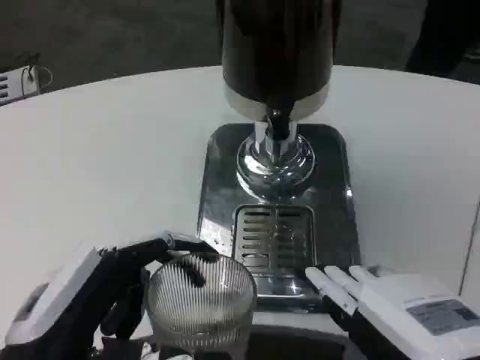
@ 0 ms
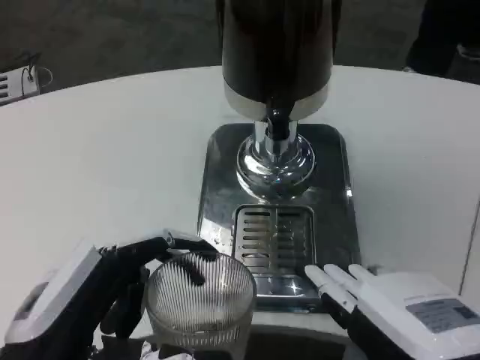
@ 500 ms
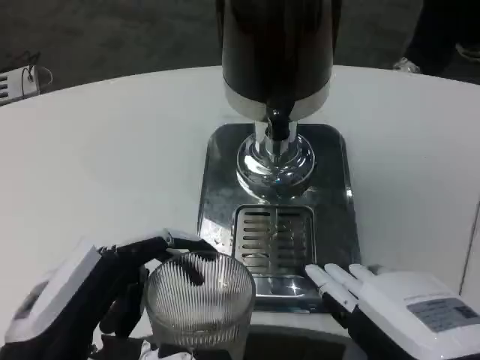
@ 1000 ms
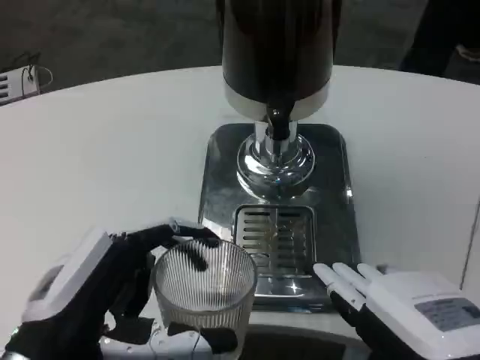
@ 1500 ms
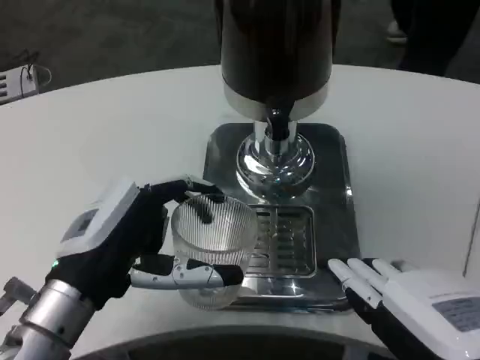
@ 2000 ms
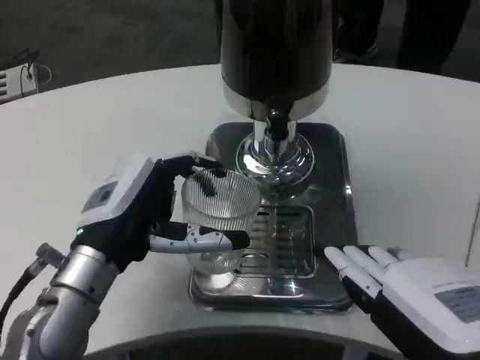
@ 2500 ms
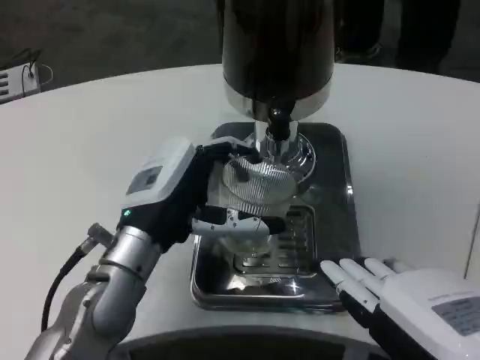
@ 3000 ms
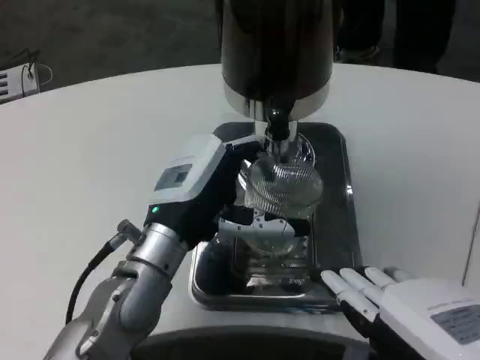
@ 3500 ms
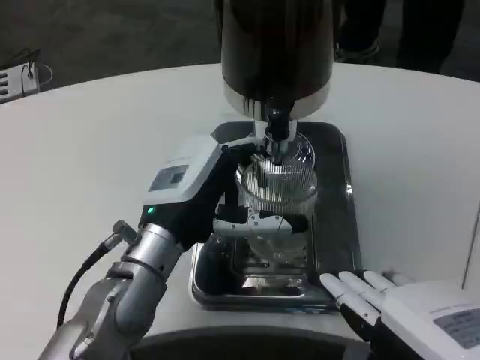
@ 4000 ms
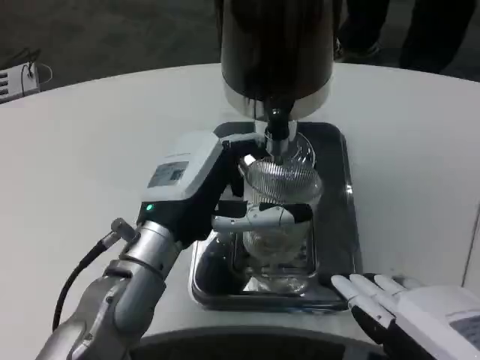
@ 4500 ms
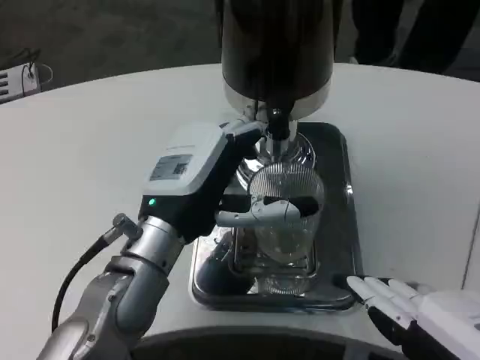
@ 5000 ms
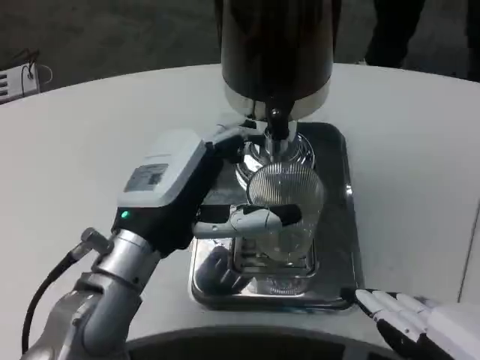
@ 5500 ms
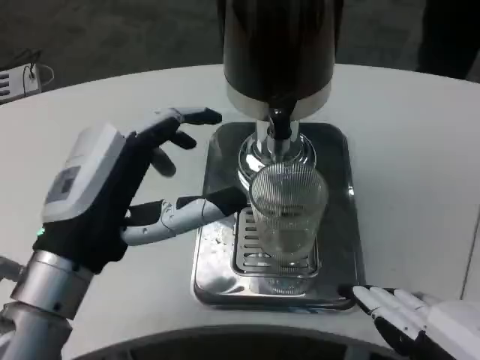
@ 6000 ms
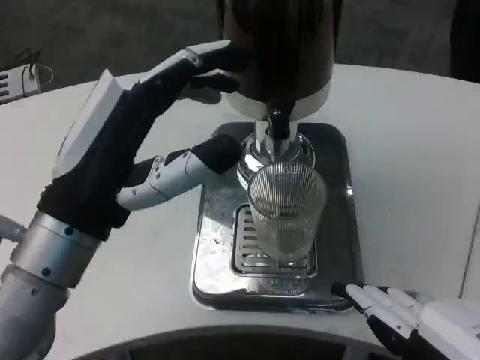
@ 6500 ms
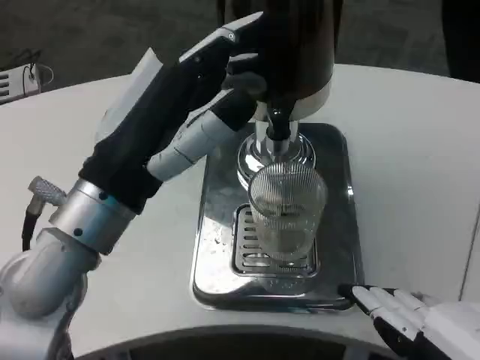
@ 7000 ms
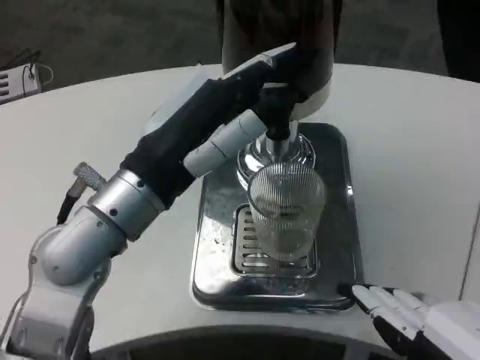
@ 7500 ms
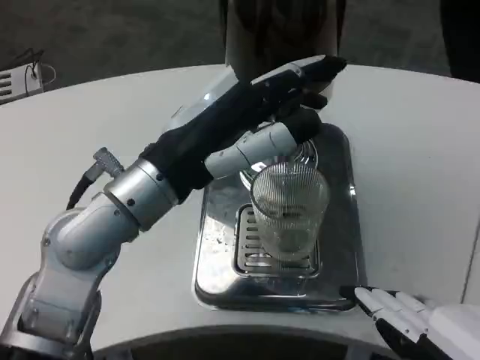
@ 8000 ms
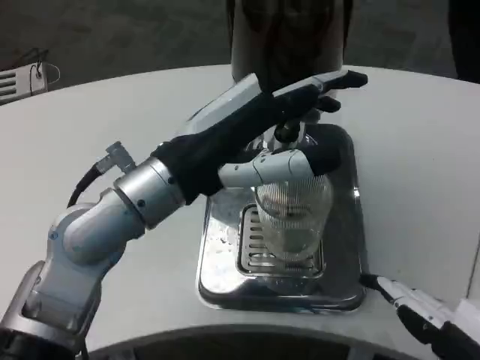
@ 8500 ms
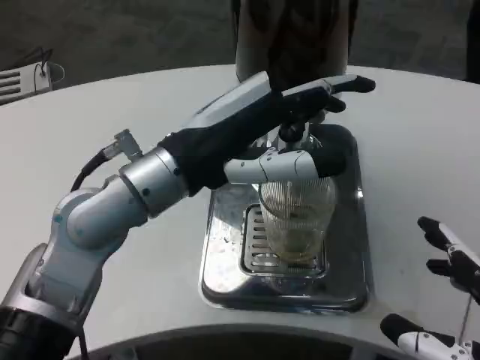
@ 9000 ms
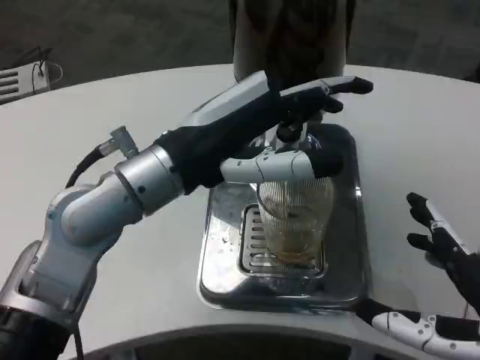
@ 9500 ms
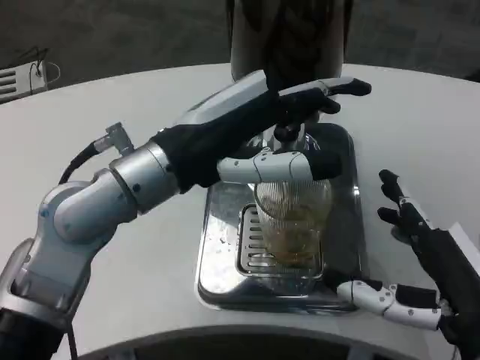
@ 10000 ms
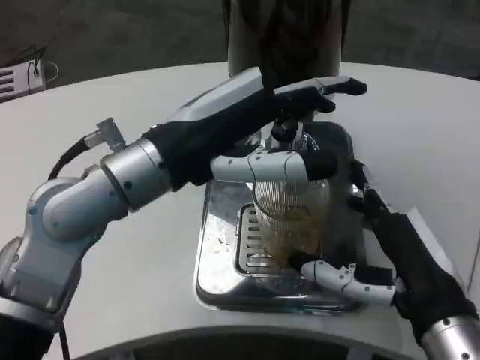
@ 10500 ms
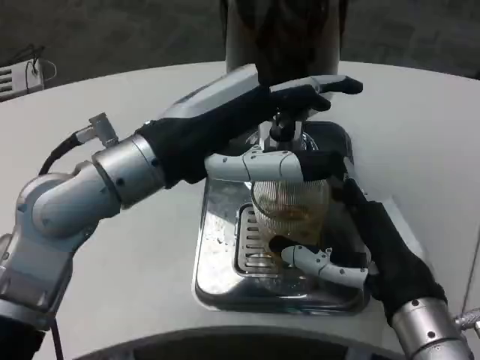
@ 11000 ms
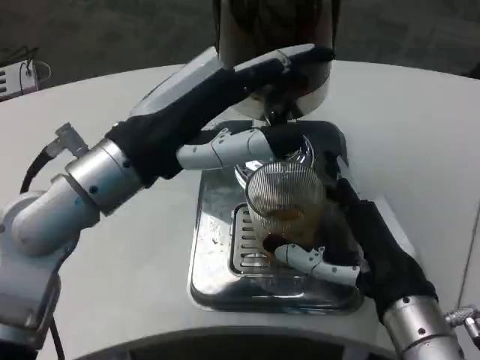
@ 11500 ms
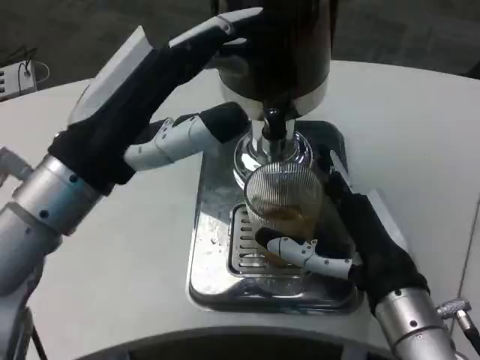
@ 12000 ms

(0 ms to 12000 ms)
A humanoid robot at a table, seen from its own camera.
Task of the whole recording: Grasp the cup under the faucet to collect the drink, then remove the cup.
0 ms - 2000 ms: The left hand is displaced forward by approximately 10 cm.
2000 ms - 4000 ms: The left hand travels forward and to the right by roughly 10 cm.
4000 ms - 6000 ms: The left hand is displaced backward and to the left by about 10 cm.
6000 ms - 8000 ms: The left hand is displaced forward and upward by approximately 10 cm.
8000 ms - 10000 ms: The right hand goes some 10 cm forward.
10000 ms - 12000 ms: The left hand changes place by roughly 5 cm. The right hand travels forward and to the left by some 10 cm.

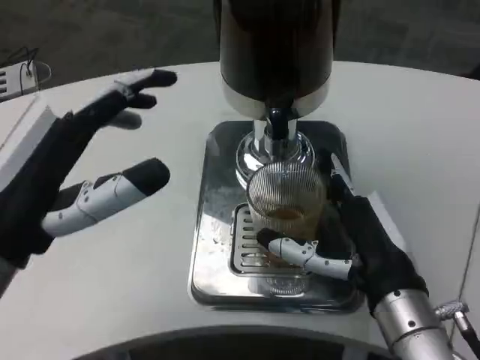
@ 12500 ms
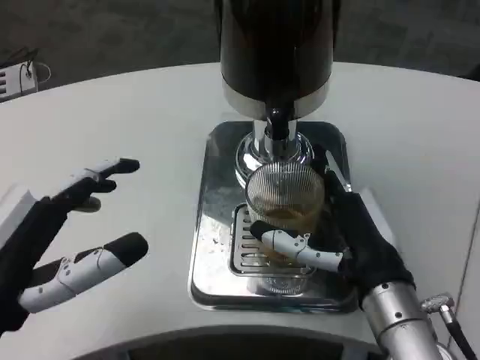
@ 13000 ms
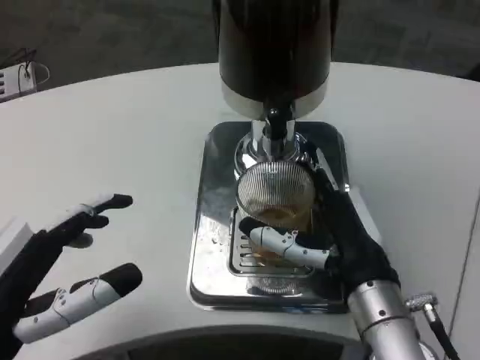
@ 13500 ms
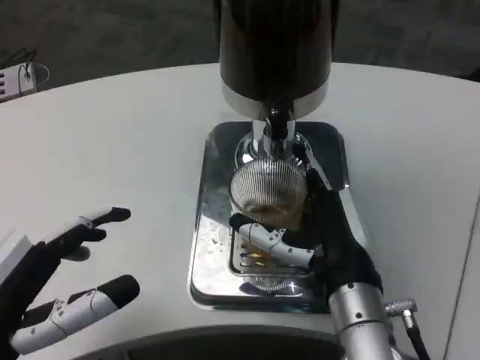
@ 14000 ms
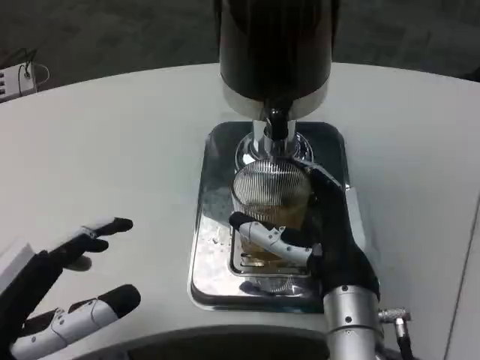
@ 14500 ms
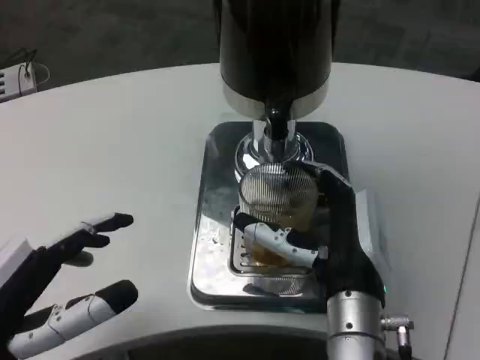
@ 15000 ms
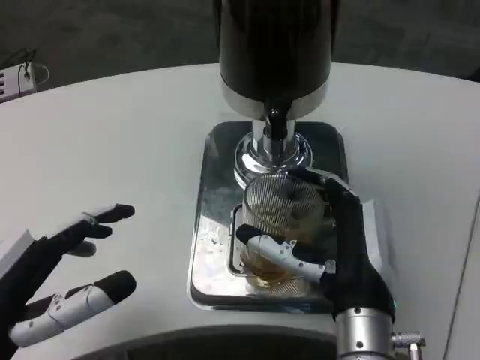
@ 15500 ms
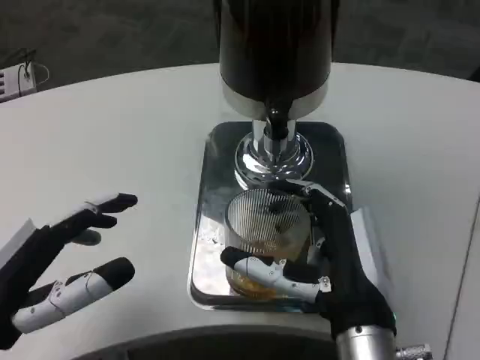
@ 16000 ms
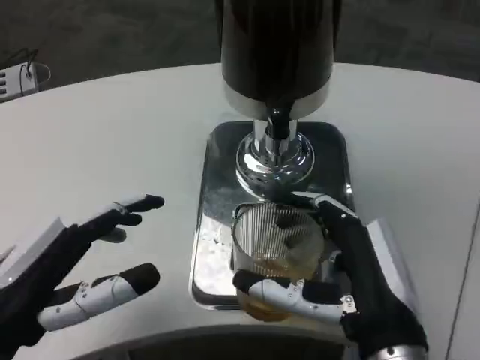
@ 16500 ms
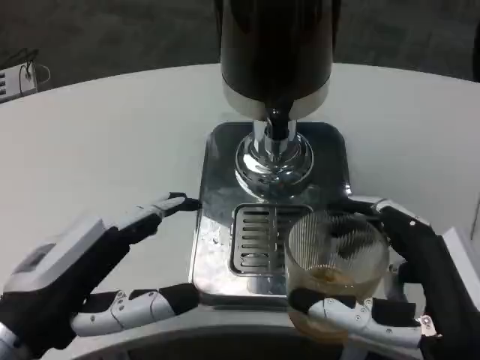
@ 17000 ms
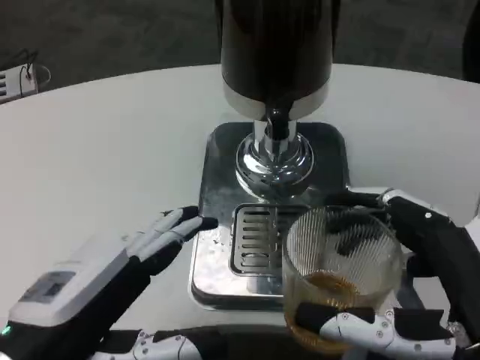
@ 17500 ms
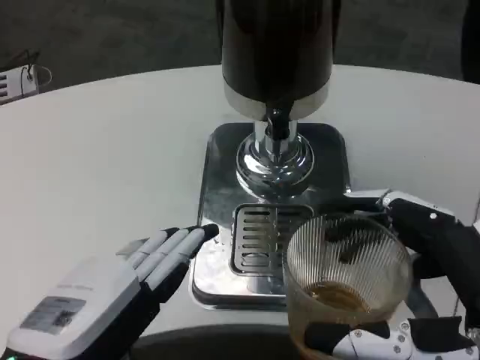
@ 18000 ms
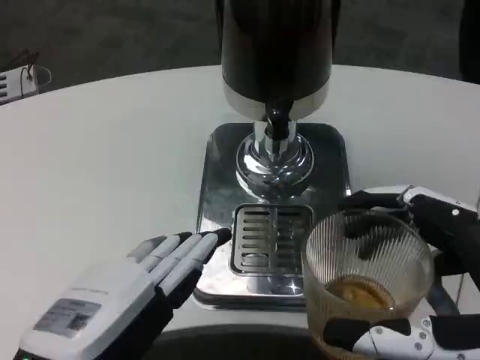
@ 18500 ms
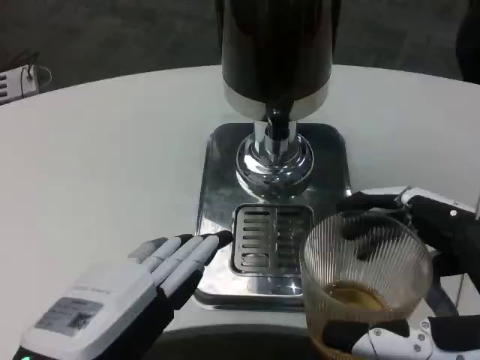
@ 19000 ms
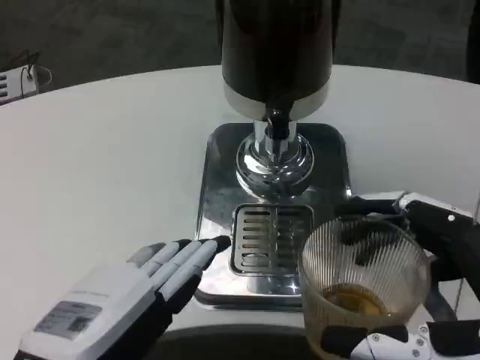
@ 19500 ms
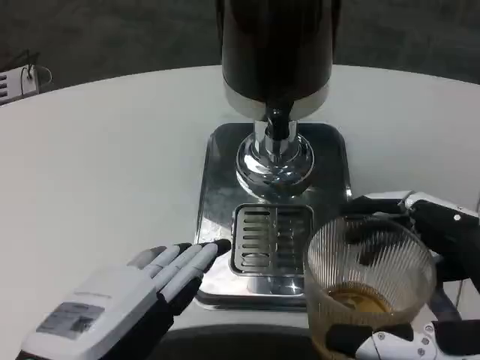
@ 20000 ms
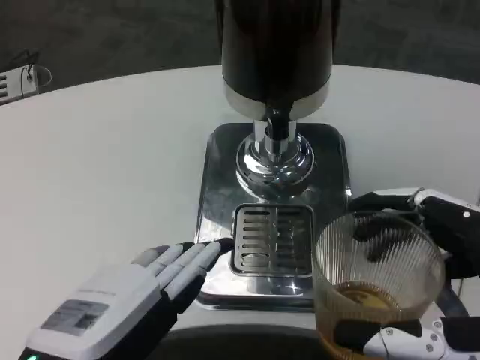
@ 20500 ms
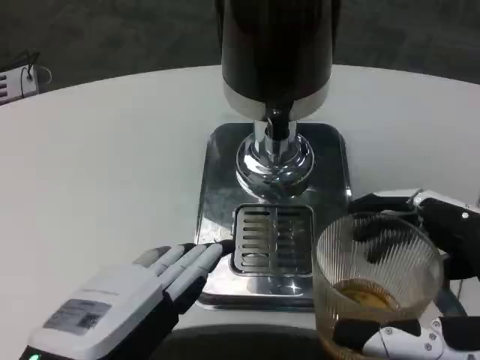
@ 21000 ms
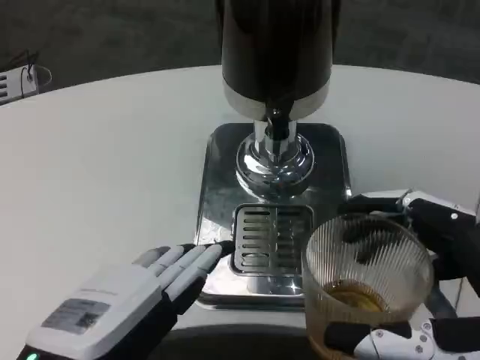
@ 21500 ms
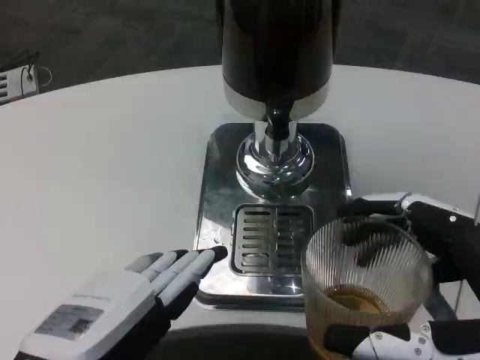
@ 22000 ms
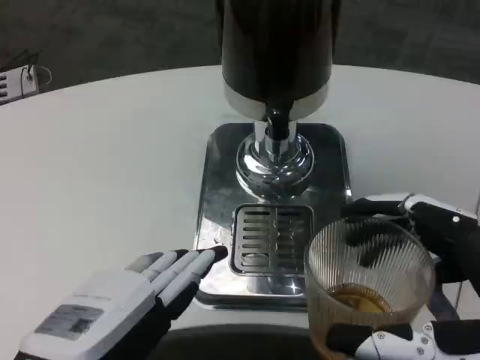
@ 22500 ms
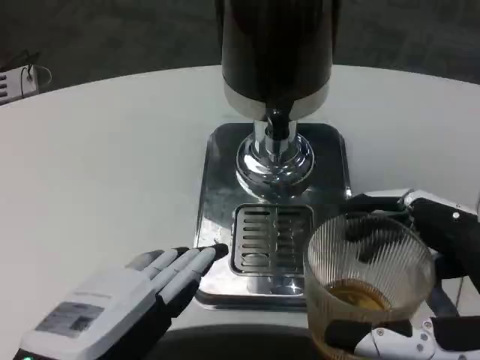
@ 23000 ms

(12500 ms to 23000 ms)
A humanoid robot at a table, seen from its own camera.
Task of the whole recording: Grasp the cup under the faucet to collect the drink, then remove the cup.
12500 ms - 14500 ms: The left hand goes approximately 5 cm downward and backward; the right hand is displaced to the left by about 5 cm.
14500 ms - 16500 ms: The right hand goes roughly 5 cm backward.
16500 ms - 19000 ms: The right hand goes approximately 15 cm to the right, backward and upward; the left hand heads backward and to the right, covering approximately 10 cm.
19000 ms - 23000 ms: Both hands stay about where they are.

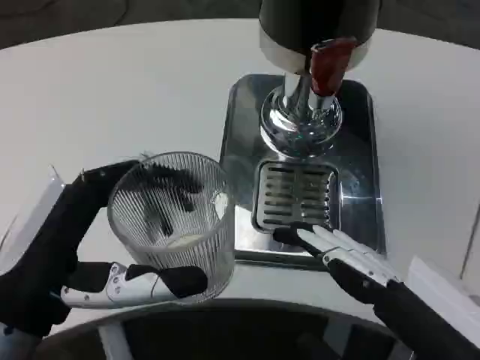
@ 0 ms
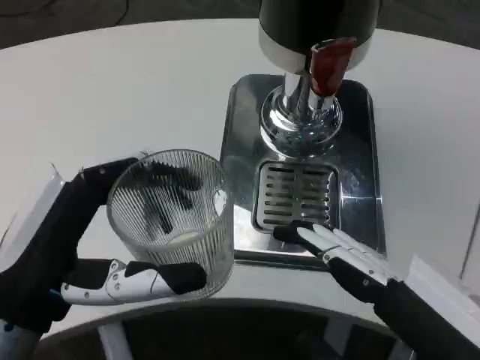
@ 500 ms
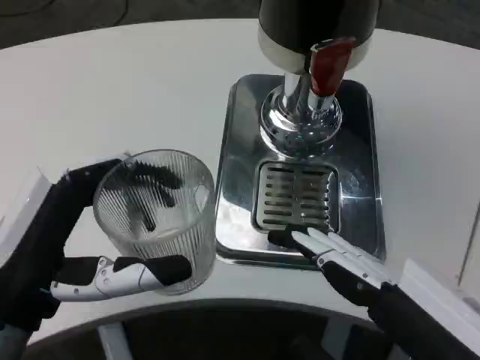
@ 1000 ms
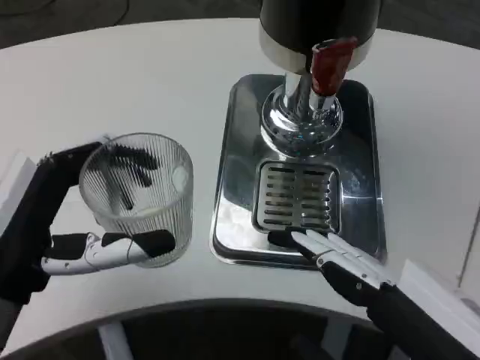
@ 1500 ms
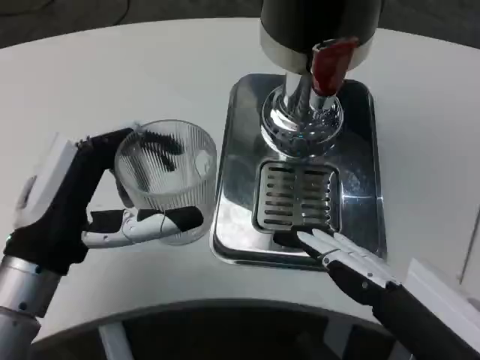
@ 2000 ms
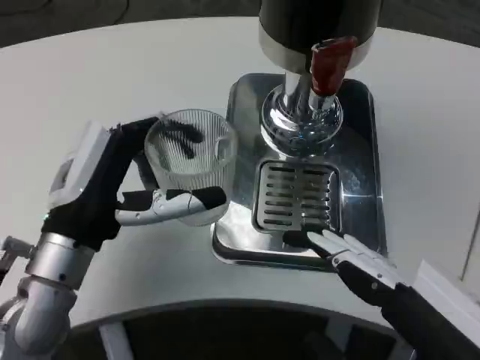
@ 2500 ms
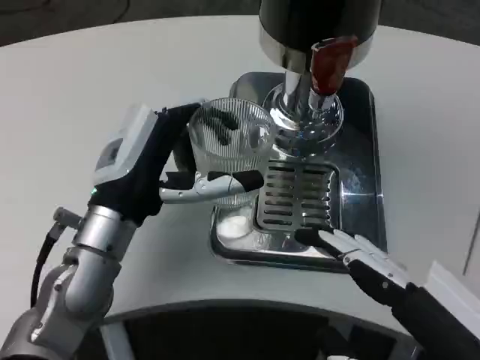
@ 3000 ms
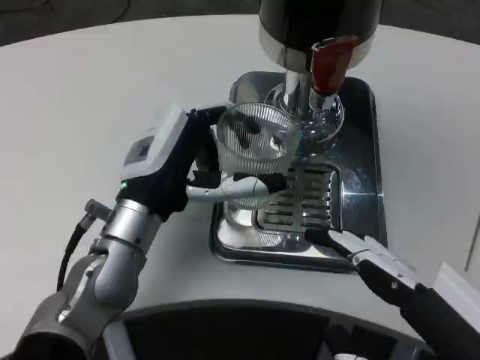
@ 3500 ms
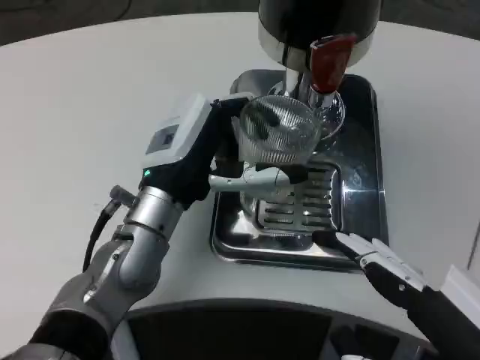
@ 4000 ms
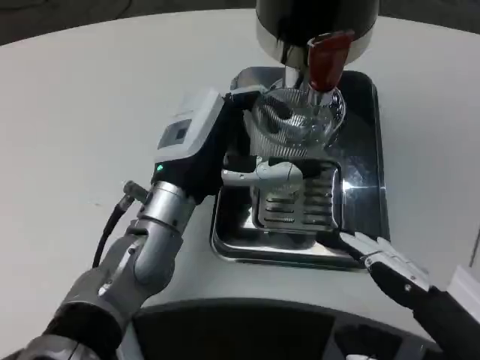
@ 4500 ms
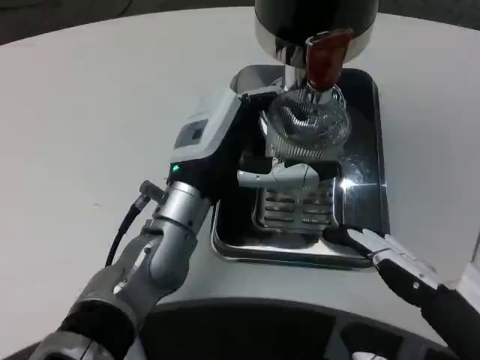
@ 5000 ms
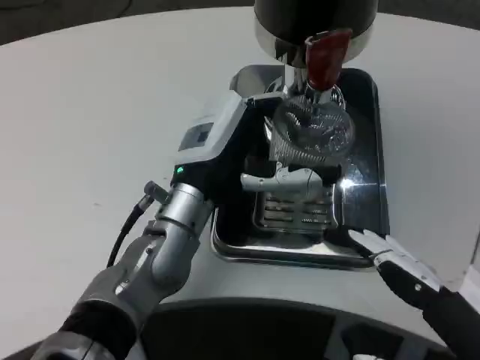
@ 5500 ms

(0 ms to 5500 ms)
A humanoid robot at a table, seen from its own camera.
Task of the whole recording: Grasp the cup under the faucet to collect the drink, then remove the cup.
0 ms - 2000 ms: The left hand moves forward, approximately 5 cm.
2000 ms - 3500 ms: The left hand shifts some 10 cm forward and to the right.
3500 ms - 5500 ms: The left hand changes place by approximately 5 cm.
